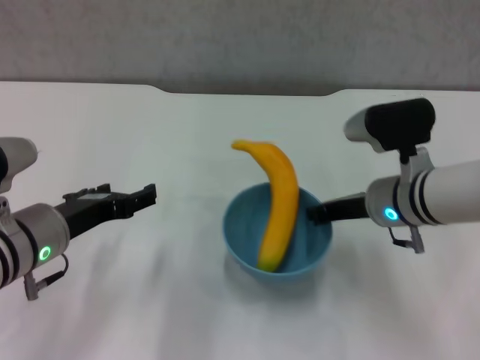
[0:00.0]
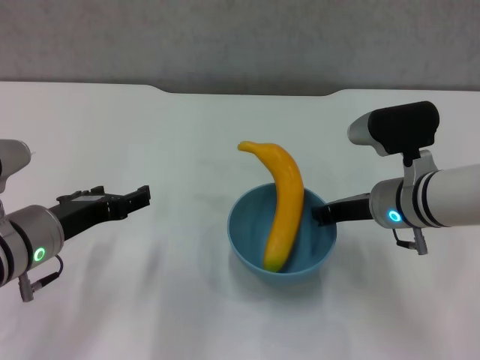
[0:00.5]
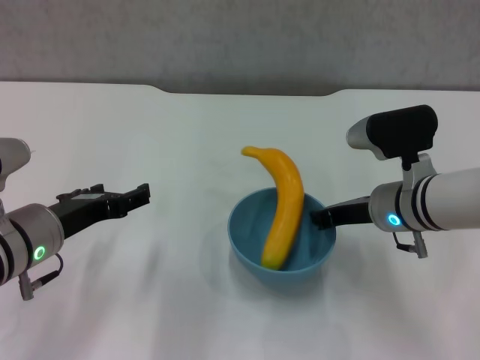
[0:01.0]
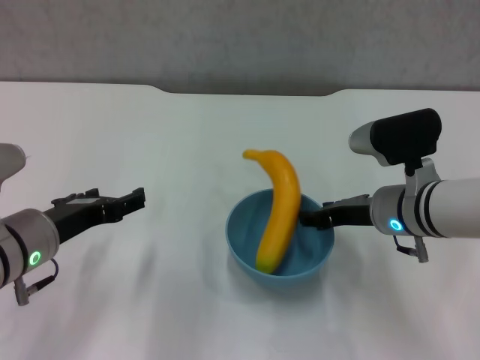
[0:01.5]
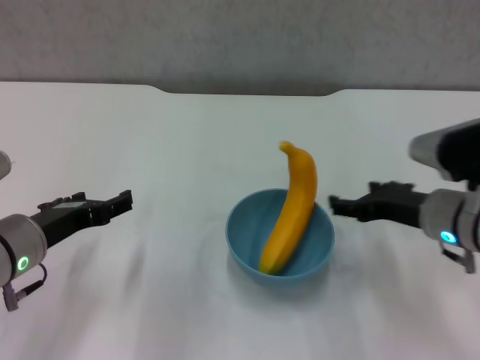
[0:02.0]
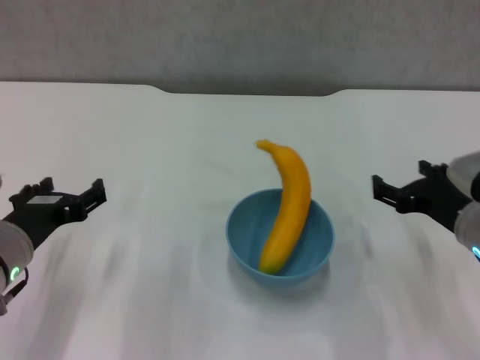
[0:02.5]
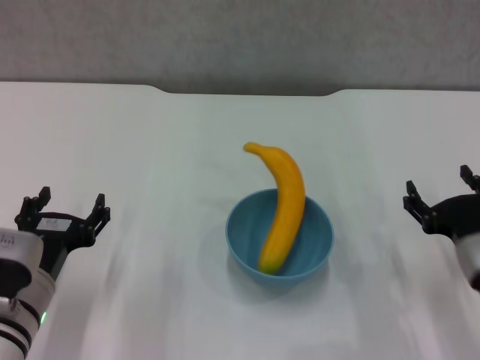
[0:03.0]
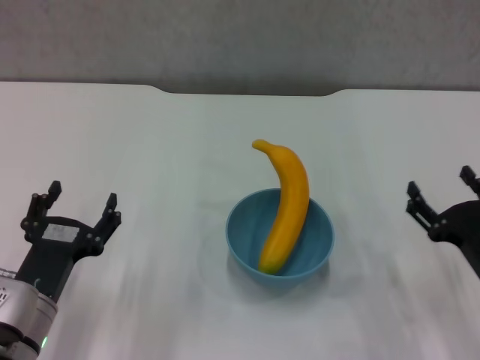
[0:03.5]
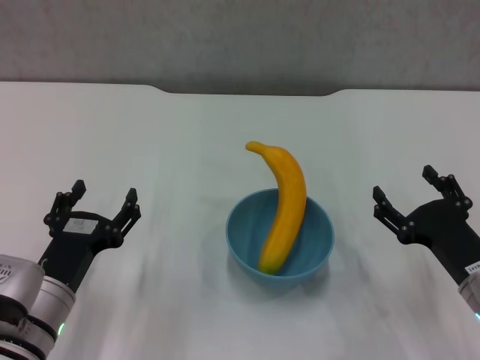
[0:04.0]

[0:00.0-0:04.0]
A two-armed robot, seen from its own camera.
Step, 0:00.0 to 0:01.5: Place the bowl on the table with right gripper.
0:00.0 to 0:02.0: The right gripper shifts about 5 cm to the right, and opens its fingers.
0:02.0 to 0:04.0: The right gripper moves backward and downward, roughly 10 cm, while the left gripper moves downward, some 5 cm.

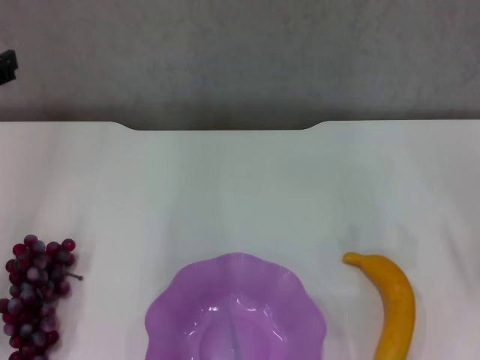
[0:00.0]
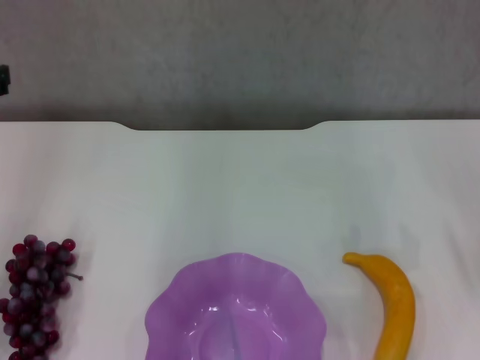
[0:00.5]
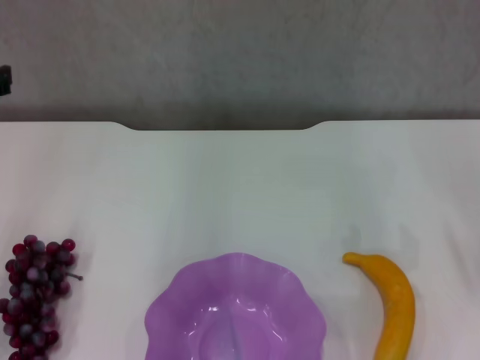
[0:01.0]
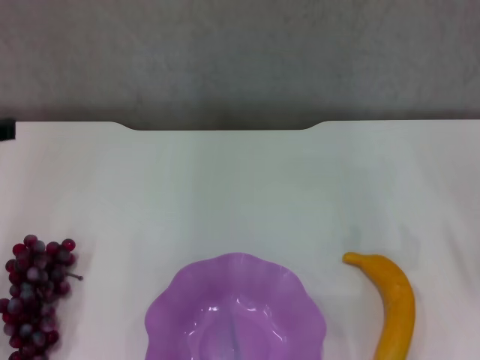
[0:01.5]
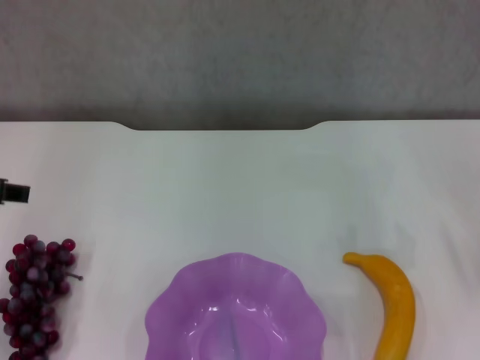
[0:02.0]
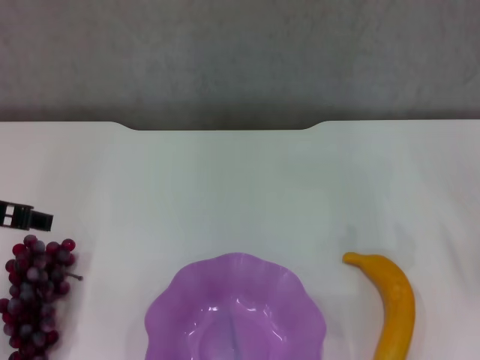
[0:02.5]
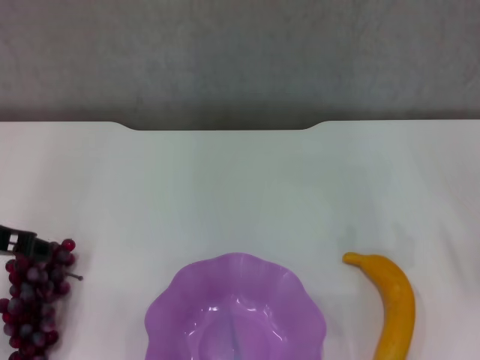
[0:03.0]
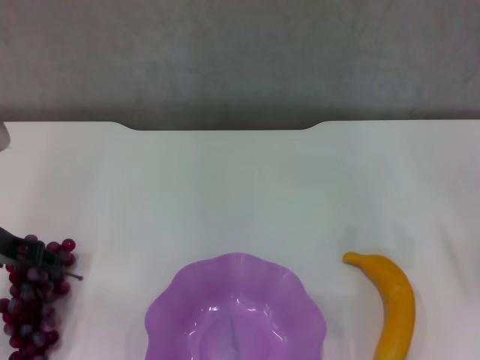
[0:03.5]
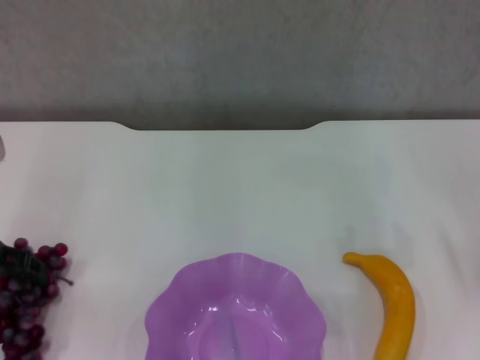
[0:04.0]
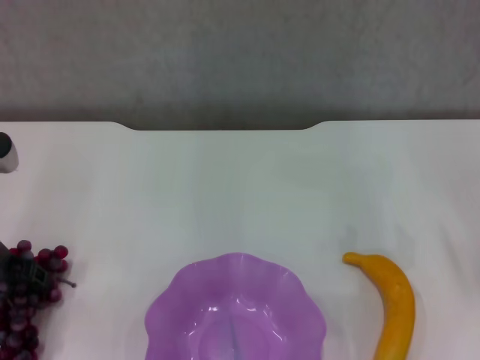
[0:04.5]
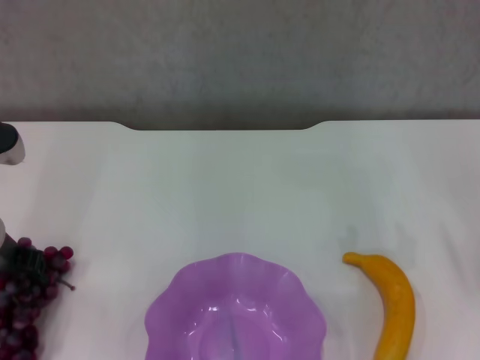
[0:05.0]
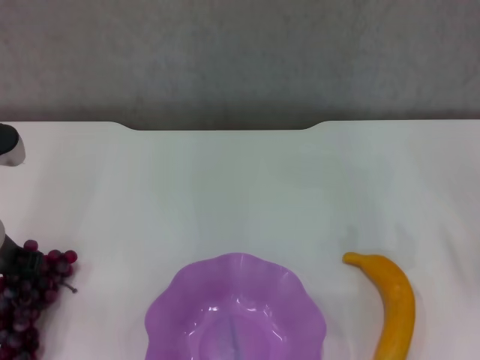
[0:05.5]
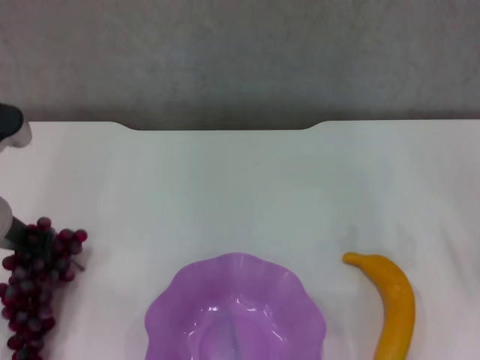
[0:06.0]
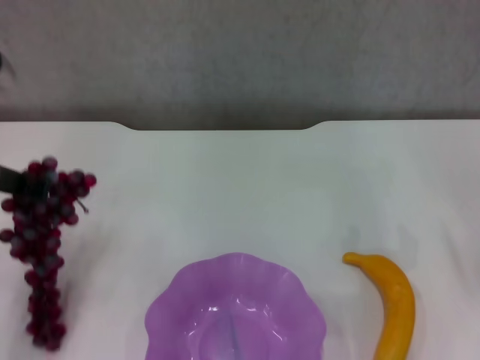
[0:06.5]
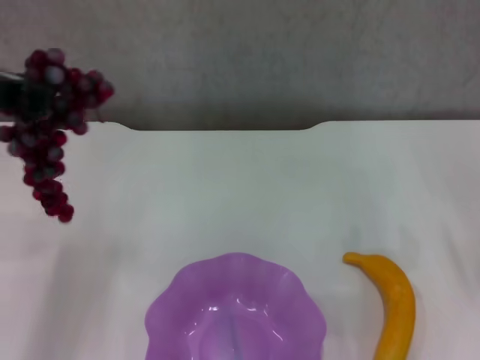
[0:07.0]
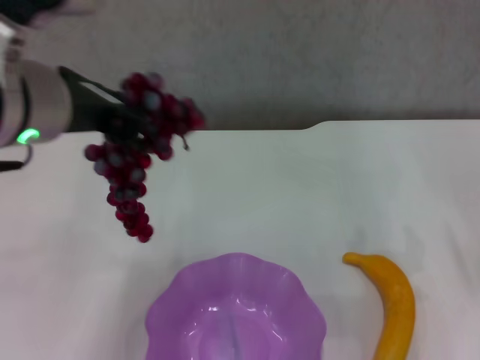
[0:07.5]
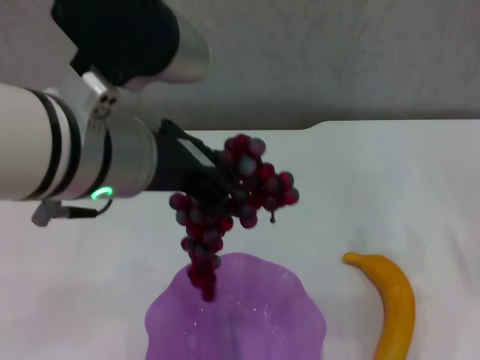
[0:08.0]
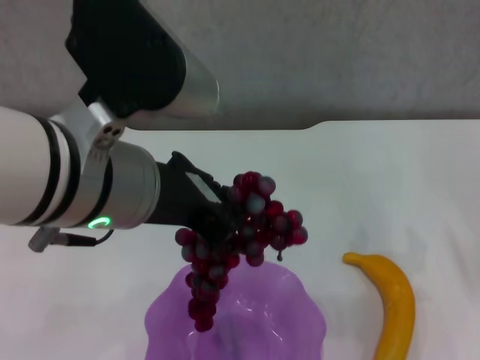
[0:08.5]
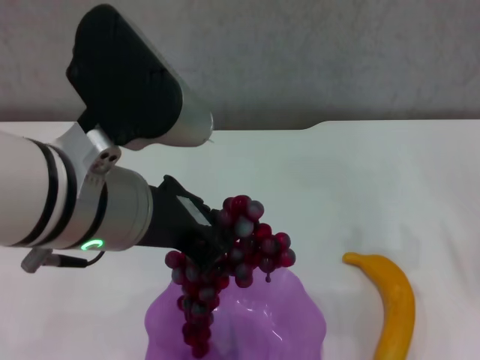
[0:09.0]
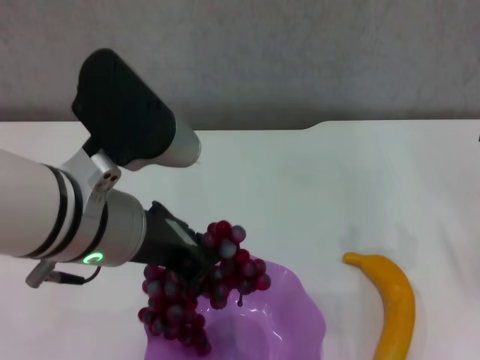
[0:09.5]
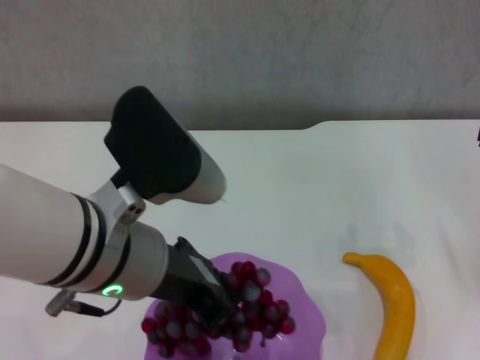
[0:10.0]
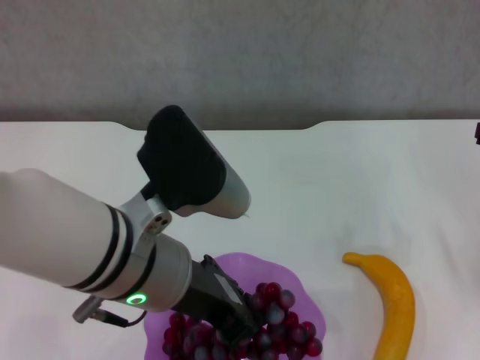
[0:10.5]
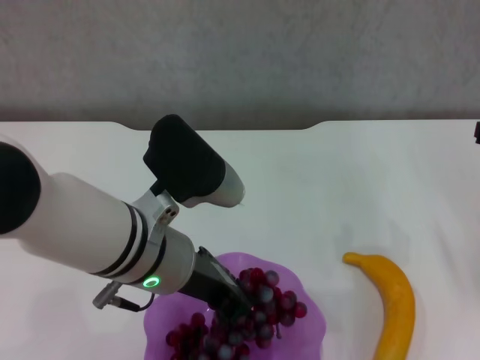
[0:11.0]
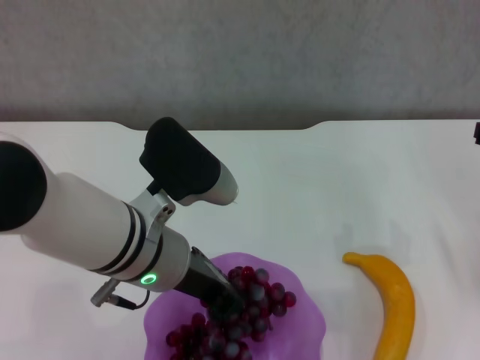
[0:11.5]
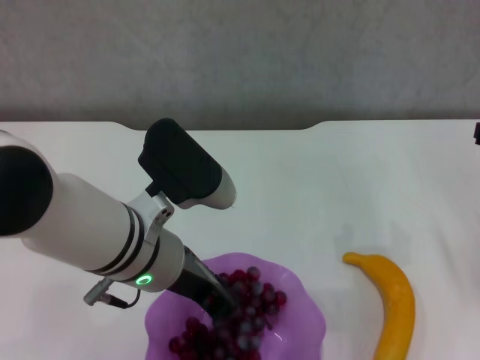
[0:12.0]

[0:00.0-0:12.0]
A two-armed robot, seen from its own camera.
Step, 0:00.0 to 0:05.0: Grasp the grape with left gripper.
0:02.0 to 0:04.0: The left gripper goes roughly 10 cm downward and forward.
0:04.0 to 0:06.0: The left gripper closes its fingers.
0:06.0 to 0:08.0: The left gripper travels to the right, upward and backward by some 20 cm.
0:08.0 to 0:10.0: The left gripper moves downward, roughly 5 cm.
0:10.0 to 0:12.0: The left gripper heads downward, covering roughly 5 cm.

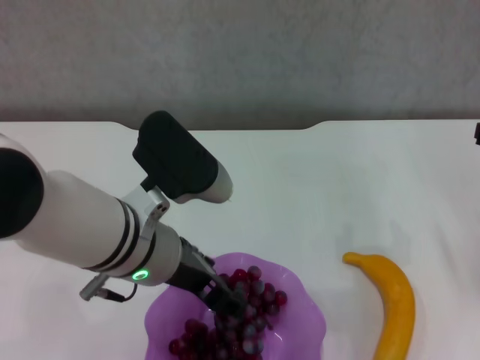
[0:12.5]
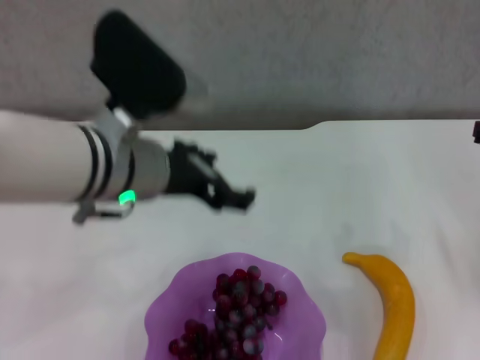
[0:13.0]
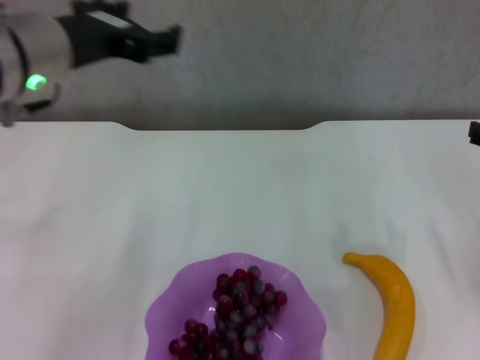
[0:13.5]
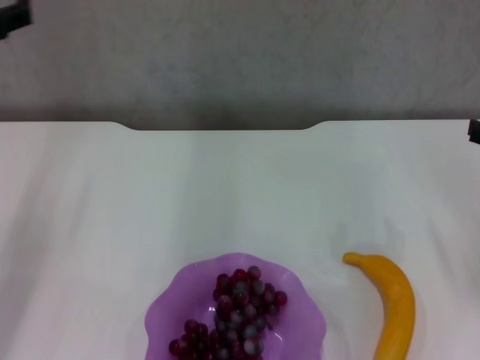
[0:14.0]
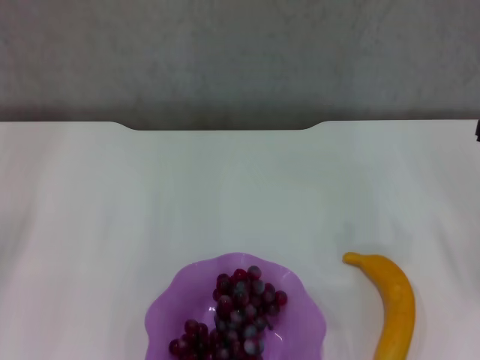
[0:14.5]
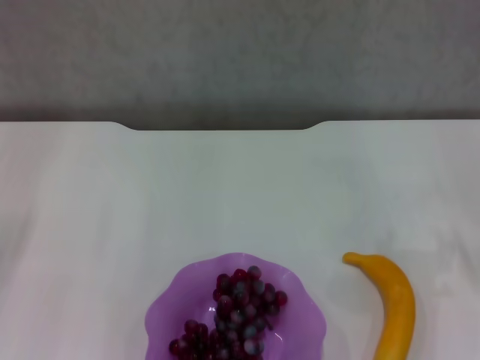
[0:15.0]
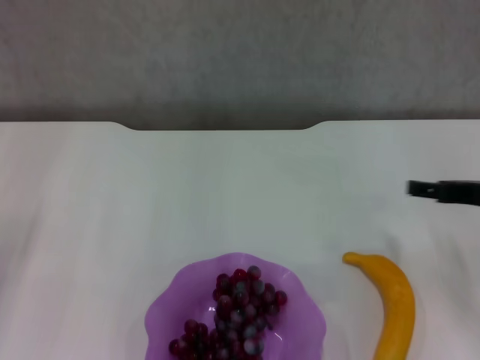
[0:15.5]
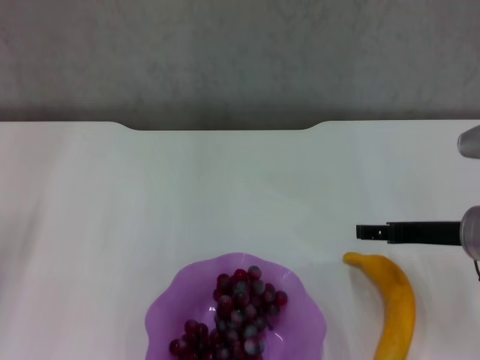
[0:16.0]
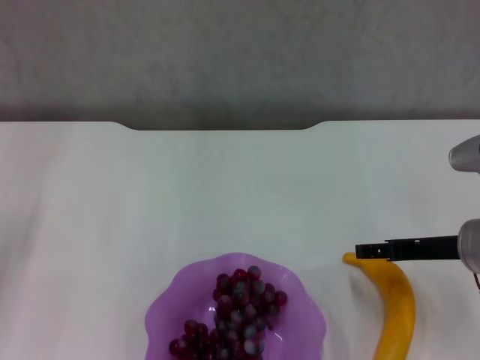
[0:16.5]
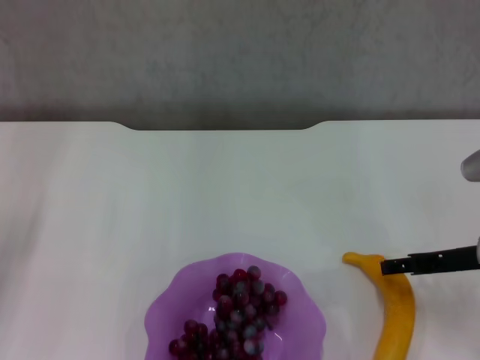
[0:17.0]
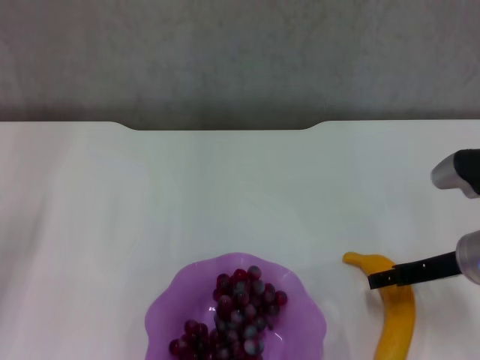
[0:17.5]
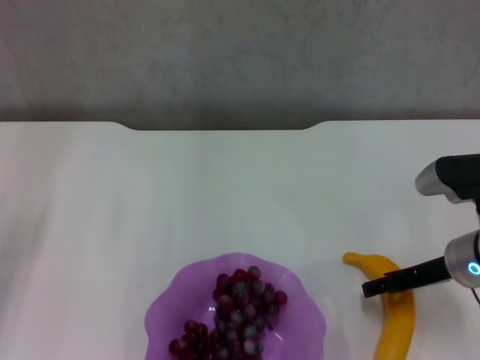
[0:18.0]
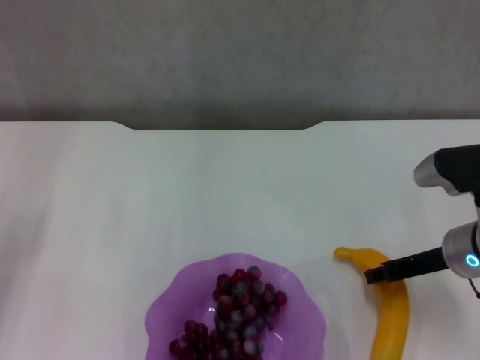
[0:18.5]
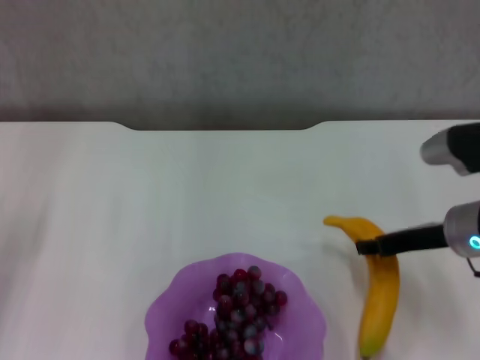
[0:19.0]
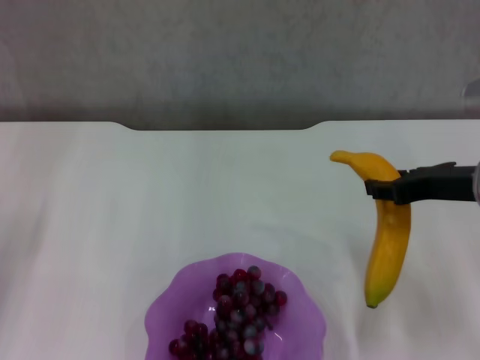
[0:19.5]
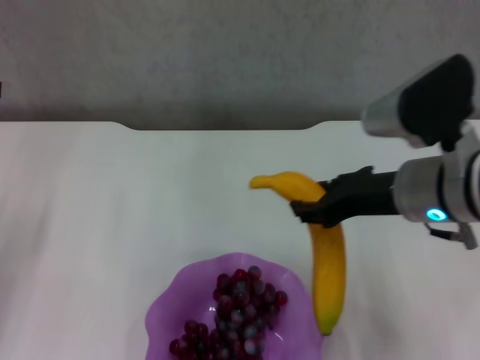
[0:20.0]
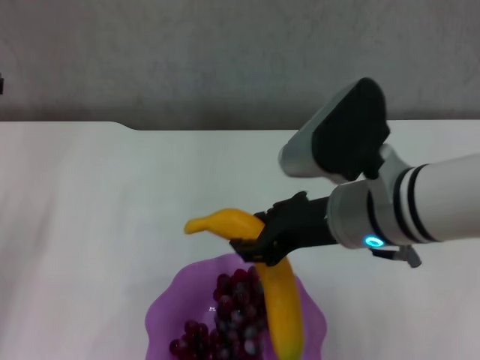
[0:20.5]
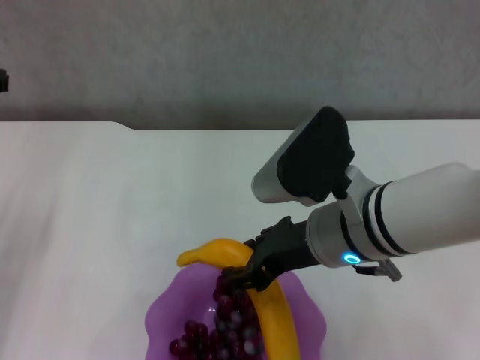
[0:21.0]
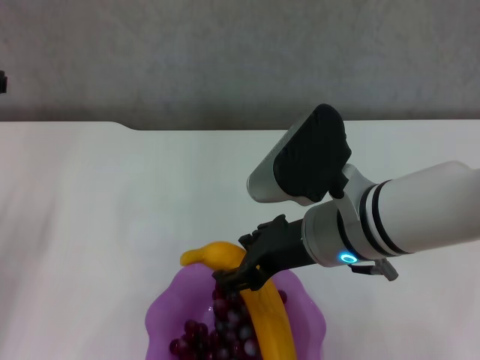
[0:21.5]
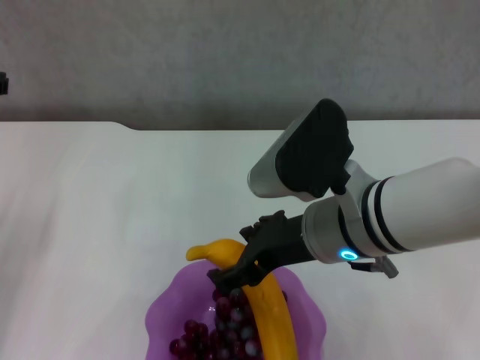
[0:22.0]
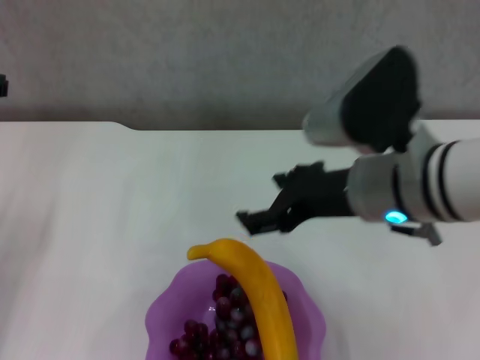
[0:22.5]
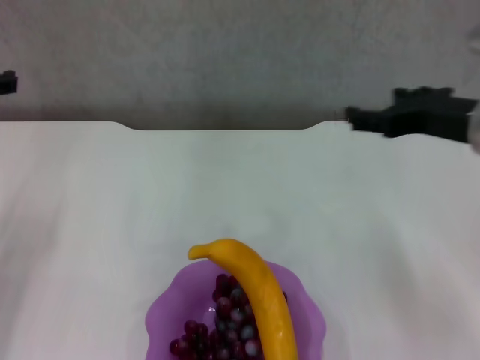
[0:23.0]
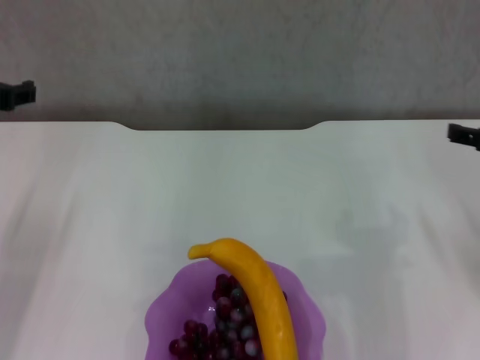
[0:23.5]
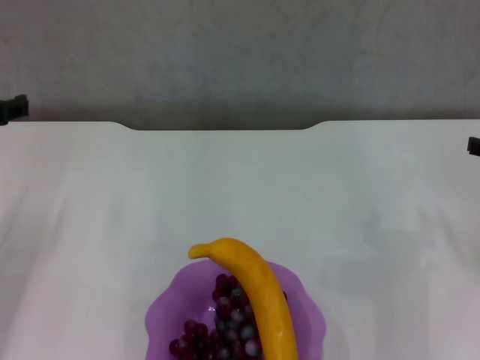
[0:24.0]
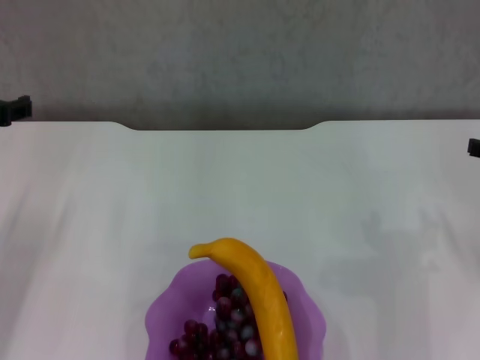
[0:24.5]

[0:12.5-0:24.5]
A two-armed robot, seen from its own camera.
Step, 0:13.5 to 0:18.0: Grasp the banana with right gripper.
Step, 0:19.0 to 0:22.5: Place the banana in the purple plate with right gripper.
0:12.5 to 0:14.5: The left gripper moves to the left, approximately 25 cm, and opens its fingers.
0:14.5 to 0:16.5: The right gripper heads downward and to the left, covering approximately 10 cm.
0:16.5 to 0:18.5: The right gripper closes.
0:18.5 to 0:20.5: The right gripper goes roughly 15 cm to the left and upward.
0:20.5 to 0:22.5: The right gripper opens up.
0:22.5 to 0:24.5: The right gripper travels to the right by some 20 cm.
